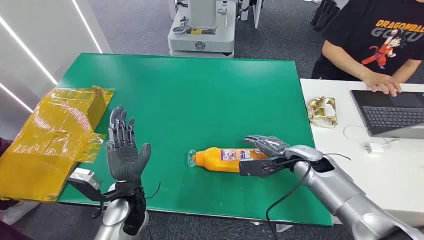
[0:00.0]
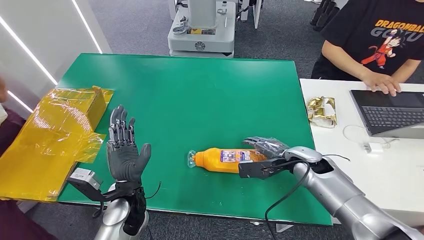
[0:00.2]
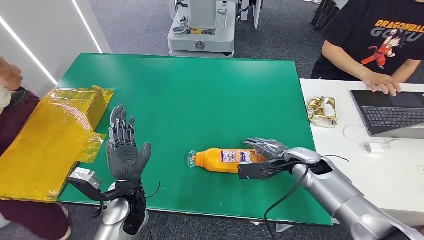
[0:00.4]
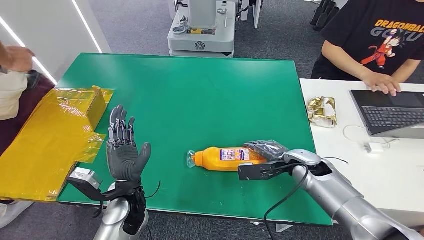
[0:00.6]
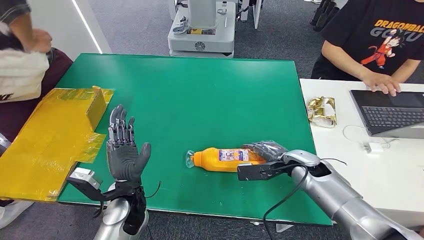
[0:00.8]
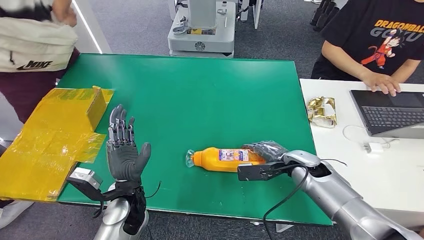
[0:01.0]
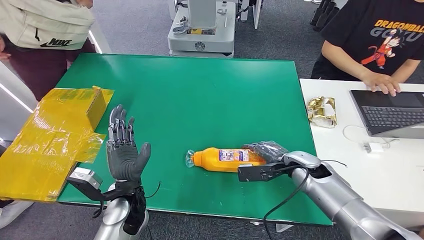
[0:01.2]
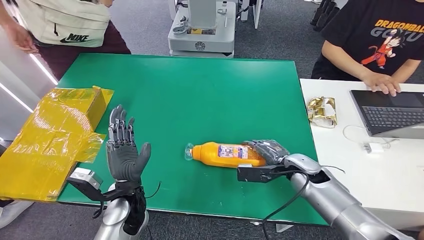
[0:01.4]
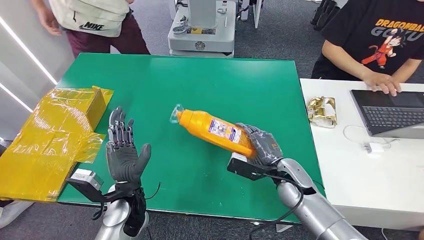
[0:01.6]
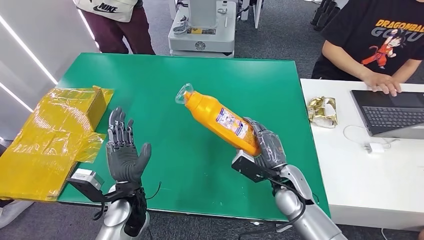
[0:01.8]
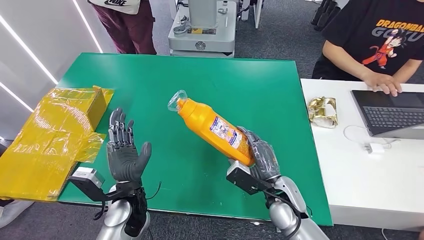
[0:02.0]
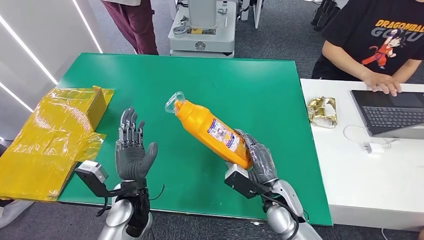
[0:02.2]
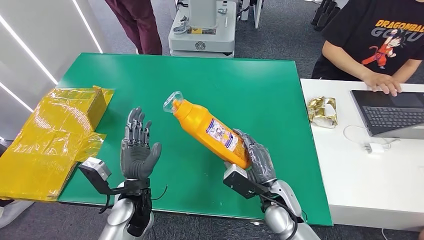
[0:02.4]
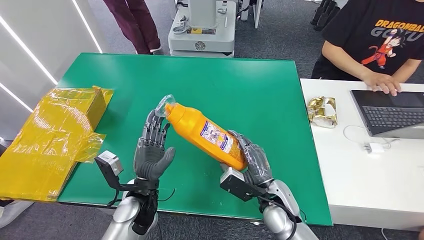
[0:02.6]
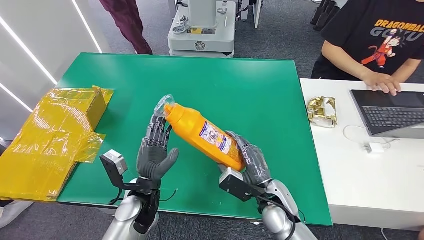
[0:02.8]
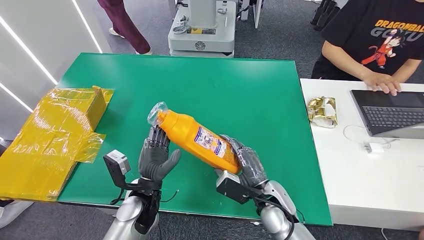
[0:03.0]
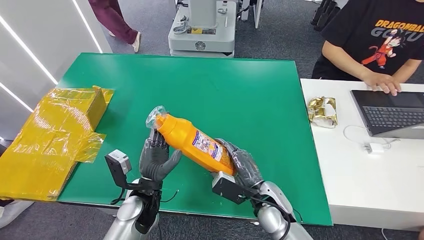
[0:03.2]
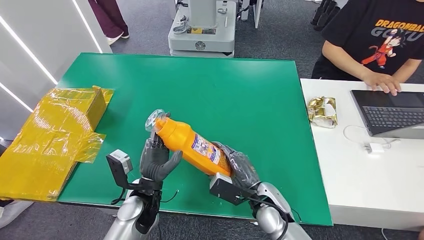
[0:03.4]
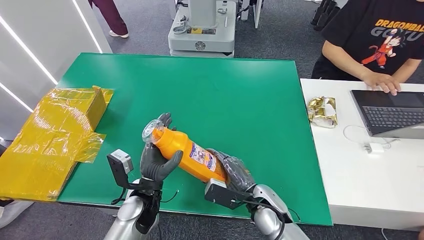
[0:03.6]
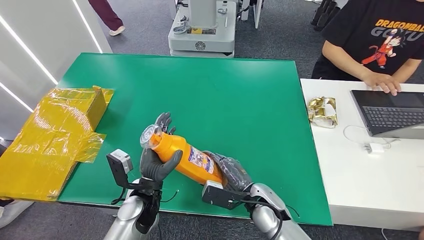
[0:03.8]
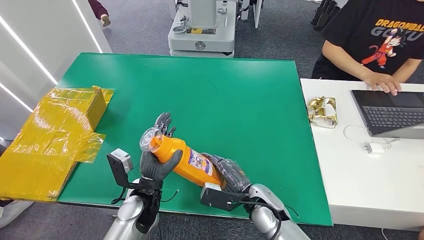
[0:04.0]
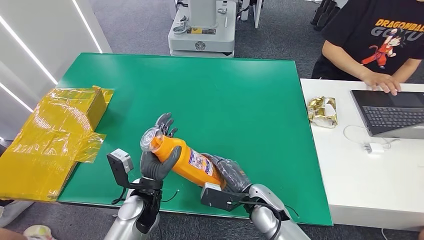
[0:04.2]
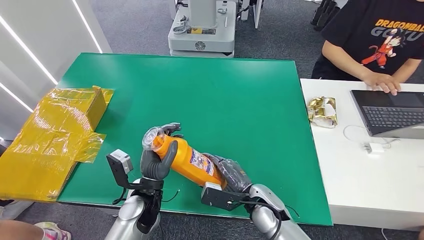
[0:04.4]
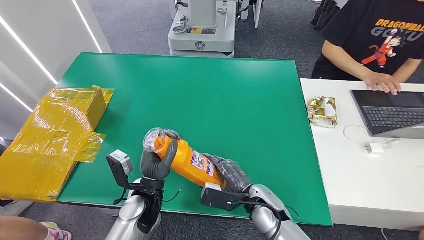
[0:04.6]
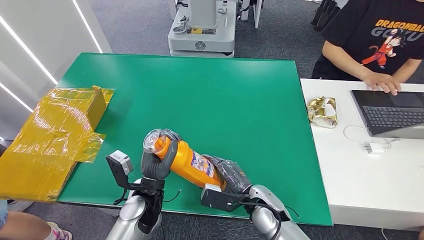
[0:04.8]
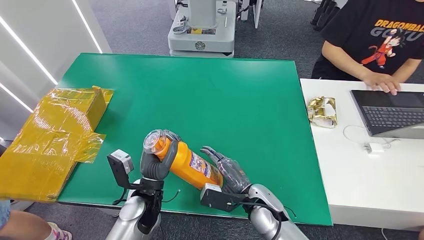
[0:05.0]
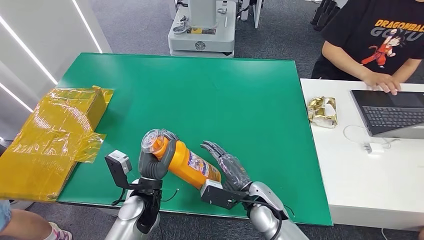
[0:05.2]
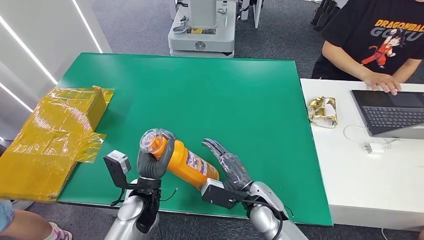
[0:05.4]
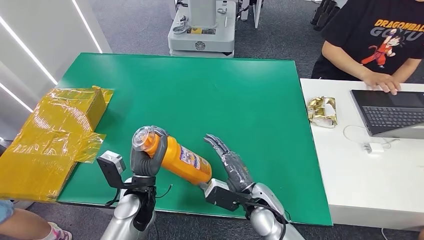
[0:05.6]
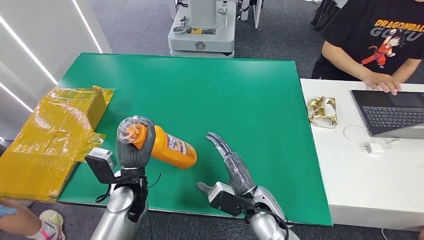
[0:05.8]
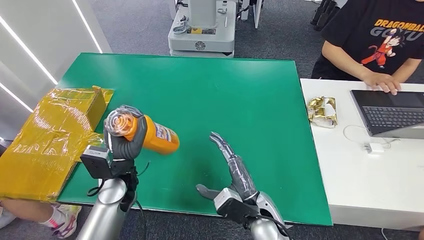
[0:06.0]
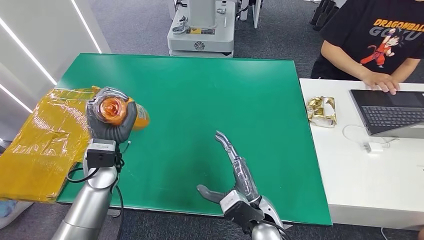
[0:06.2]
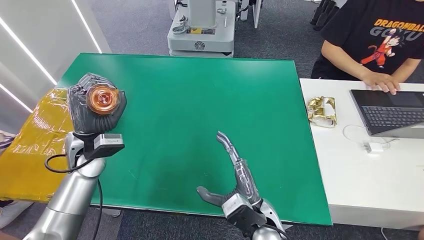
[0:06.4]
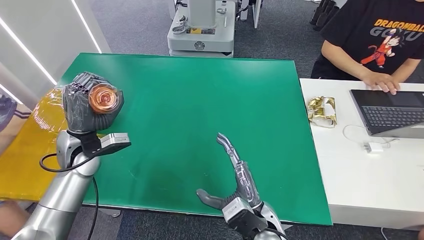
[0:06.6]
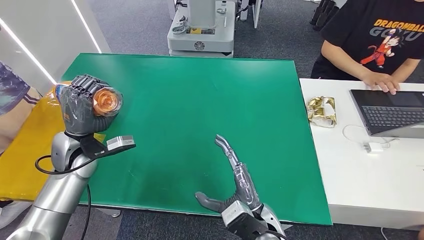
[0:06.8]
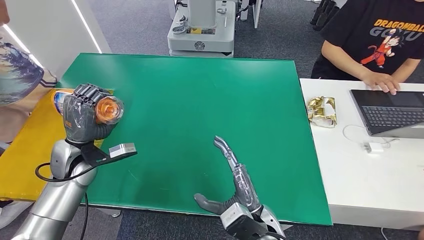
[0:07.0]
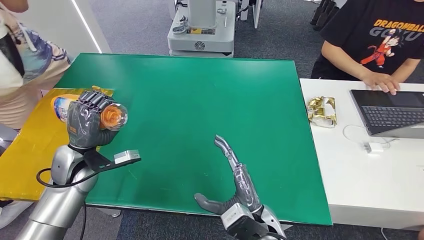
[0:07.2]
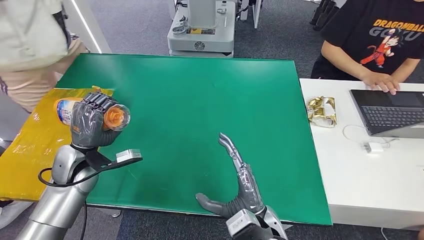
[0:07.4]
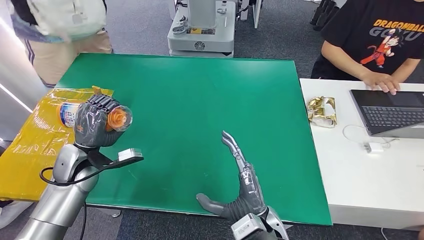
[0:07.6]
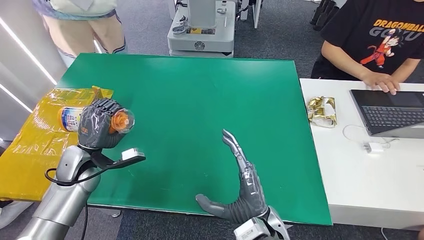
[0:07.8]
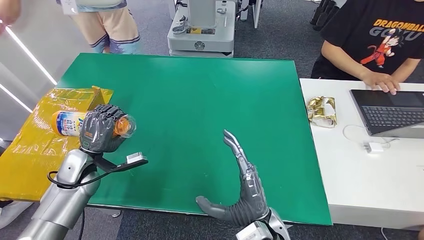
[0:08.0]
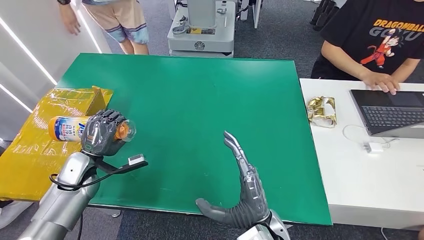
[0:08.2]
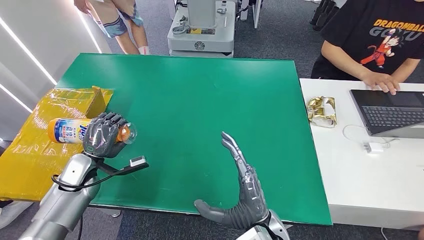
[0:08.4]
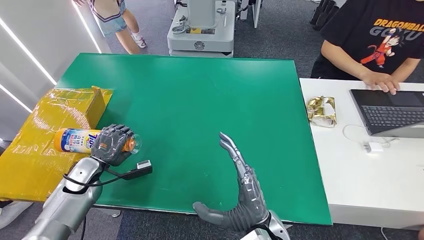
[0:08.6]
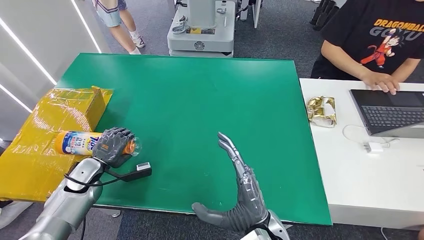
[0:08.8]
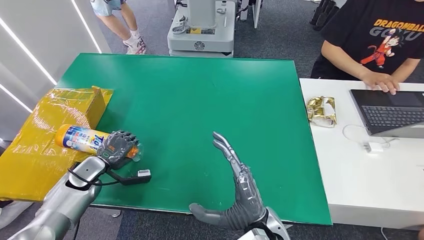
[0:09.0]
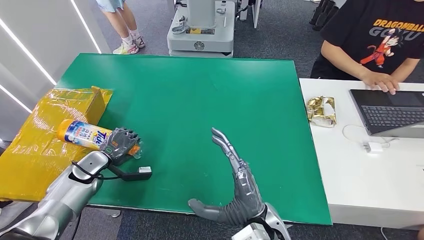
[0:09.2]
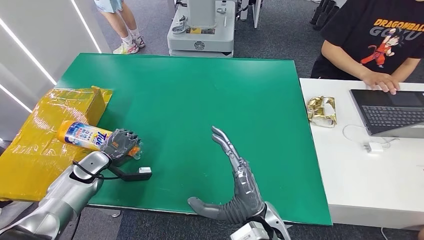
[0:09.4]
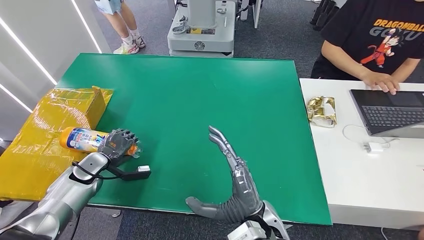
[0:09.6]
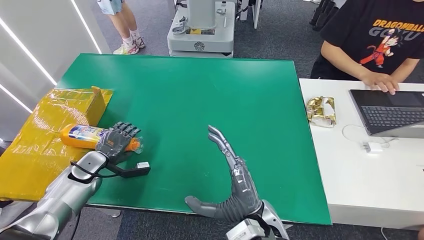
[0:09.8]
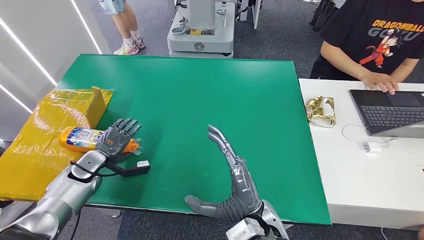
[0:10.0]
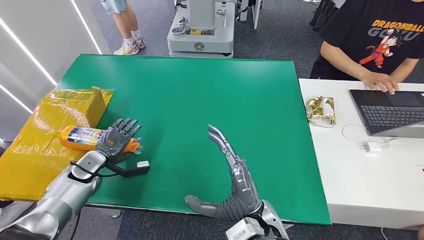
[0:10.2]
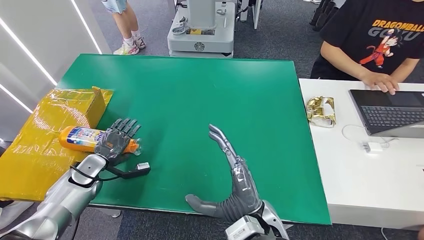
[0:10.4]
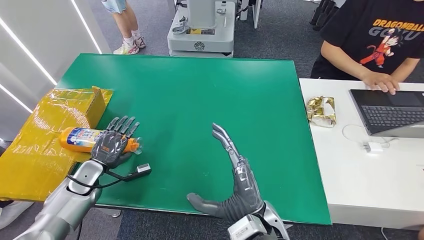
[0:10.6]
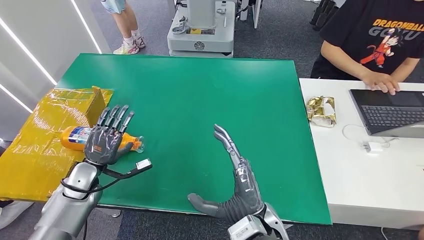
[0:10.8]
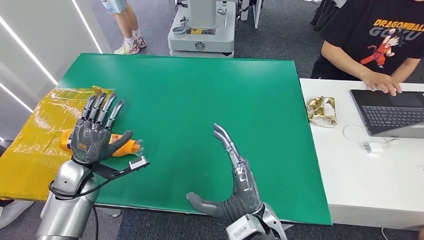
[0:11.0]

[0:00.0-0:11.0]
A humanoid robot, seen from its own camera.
Step, 0:00.0 to 0:04.2: Pick up the bottle from the table.
Step, 0:04.4 to 0:11.0: Turn the bottle to the front side.
0:03.2 to 0:04.8: There are only small adjustments of the hands.
0:04.8 to 0:06.2: The right hand changes place by some 5 cm; the left hand heads to the left, forward and upward, covering roughly 15 cm.
0:06.2 to 0:07.8: The right hand changes place by about 5 cm. Meanwhile the left hand goes about 10 cm to the left.
0:07.8 to 0:09.4: The left hand moves downward, roughly 10 cm.
0:09.4 to 0:11.0: The left hand moves upward, approximately 10 cm.
